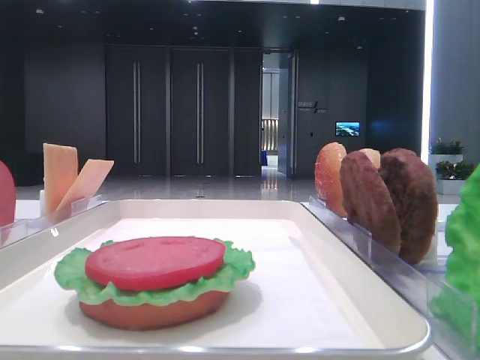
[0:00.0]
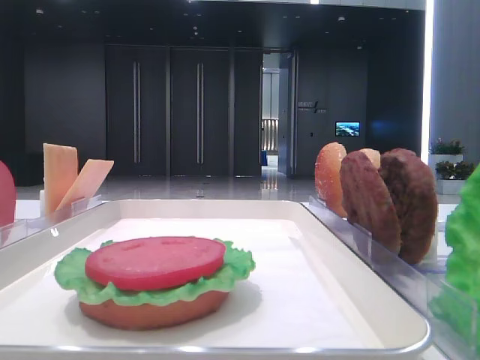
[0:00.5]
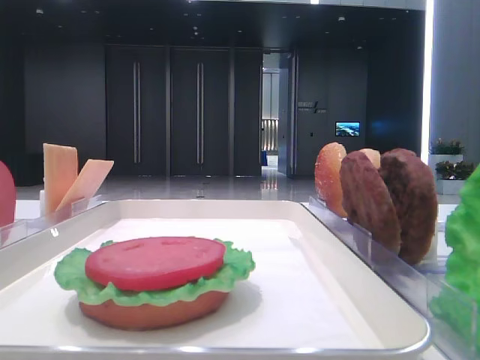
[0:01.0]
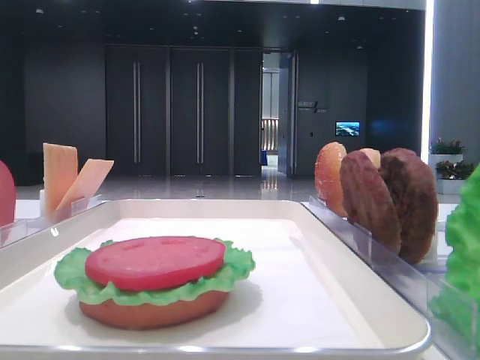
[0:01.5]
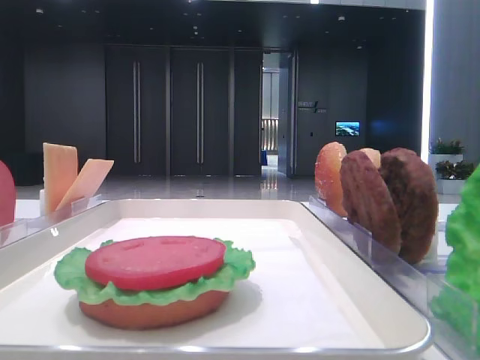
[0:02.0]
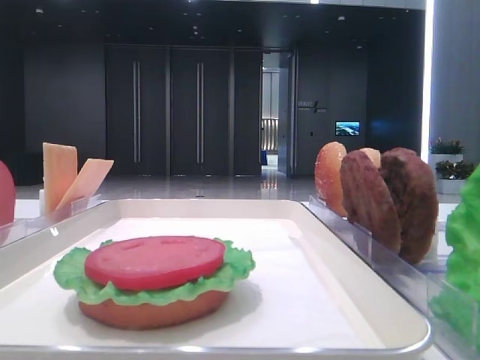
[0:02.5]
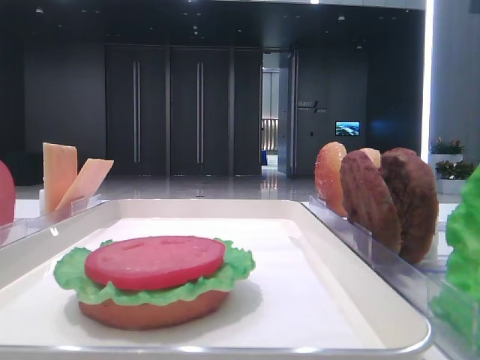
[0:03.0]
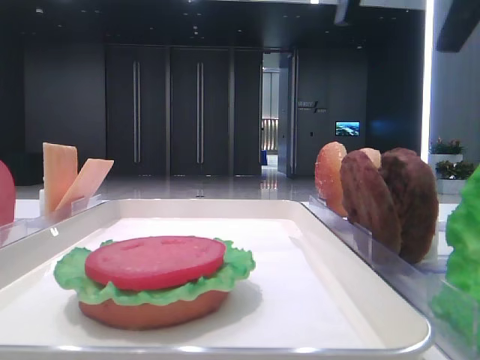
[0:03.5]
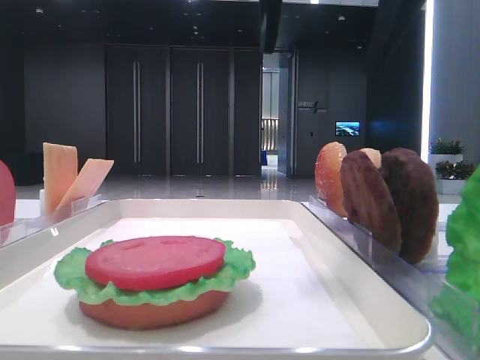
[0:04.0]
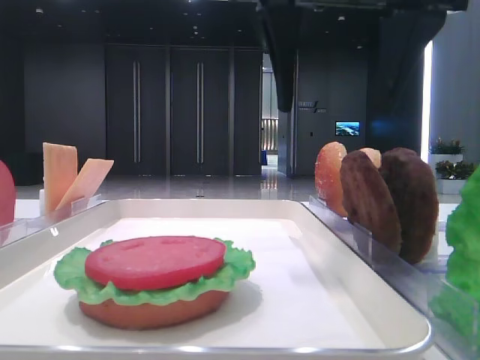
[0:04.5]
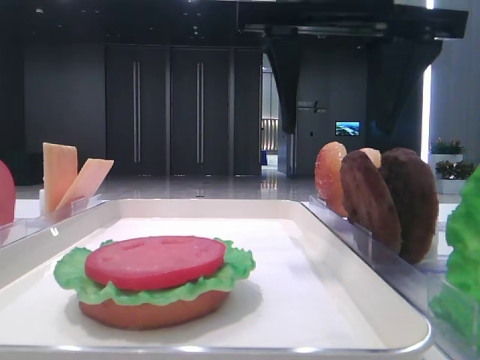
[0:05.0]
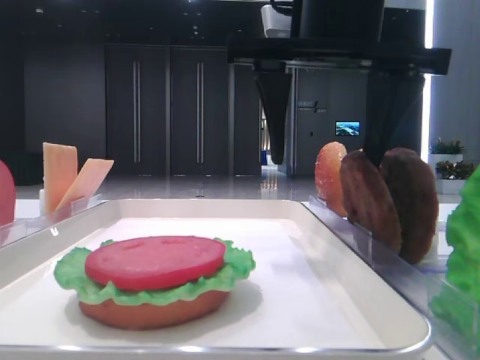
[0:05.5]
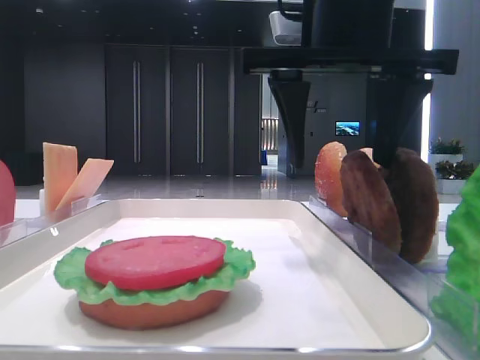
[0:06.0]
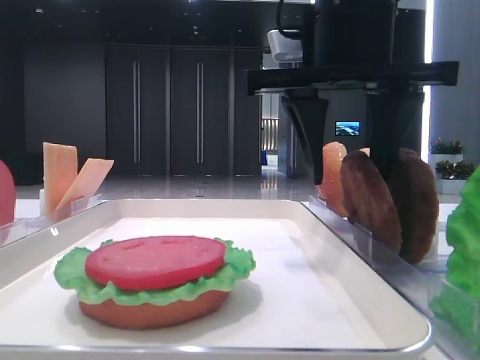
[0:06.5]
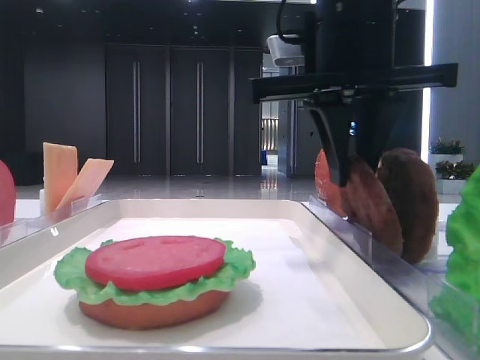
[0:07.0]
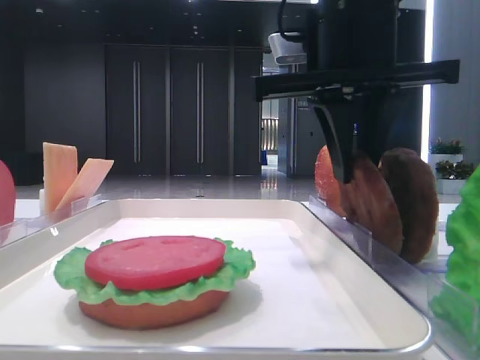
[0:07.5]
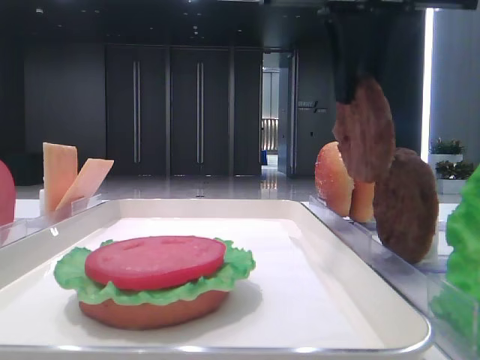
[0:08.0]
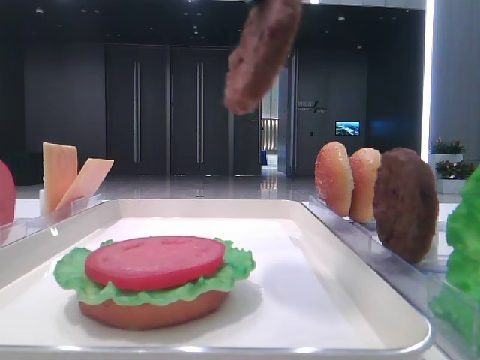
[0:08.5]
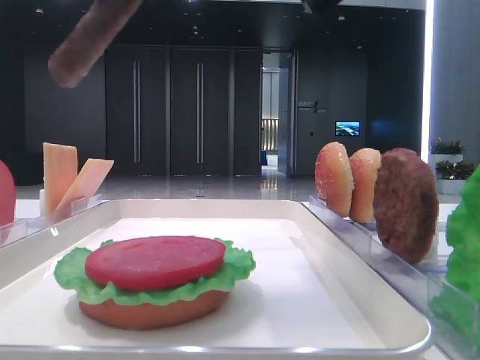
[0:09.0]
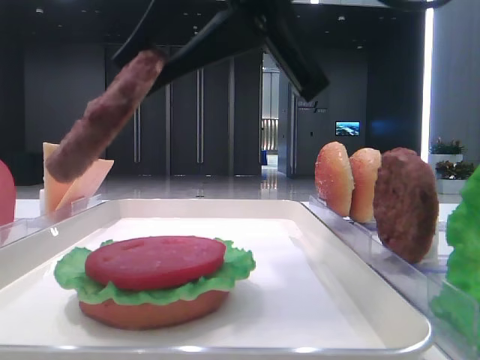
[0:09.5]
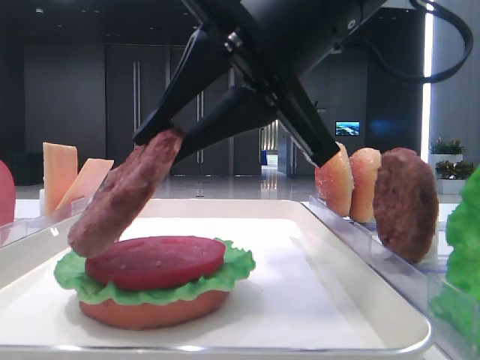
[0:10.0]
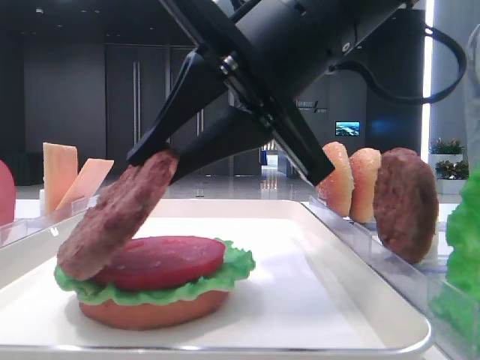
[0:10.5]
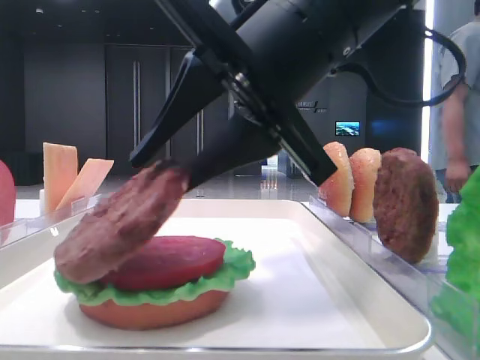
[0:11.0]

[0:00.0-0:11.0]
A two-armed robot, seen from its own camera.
Step, 0:00.0 to 0:07.0: Grab the patty with the right hand.
0:02.0 to 0:03.5: The right gripper goes approximately 15 cm to the left.
0:03.5 to 0:05.5: The left gripper closes its fingers. The right gripper goes some 10 cm downward and to the left.
0:05.5 to 0:07.5: The right gripper closes.
0:07.5 to 0:09.0: The right gripper is displaced upward and backward by roughly 10 cm.
0:09.0 to 0:11.0: The right gripper shifts about 10 cm downward.

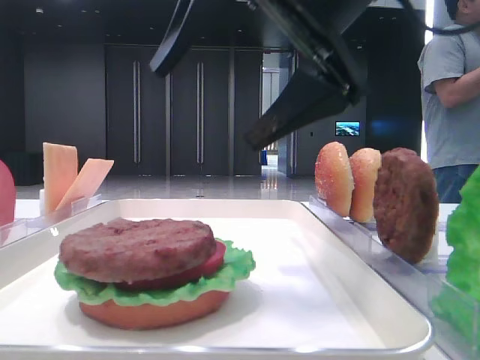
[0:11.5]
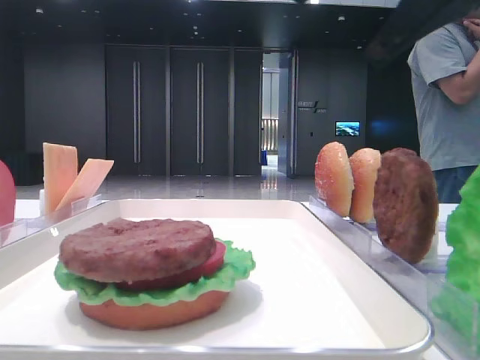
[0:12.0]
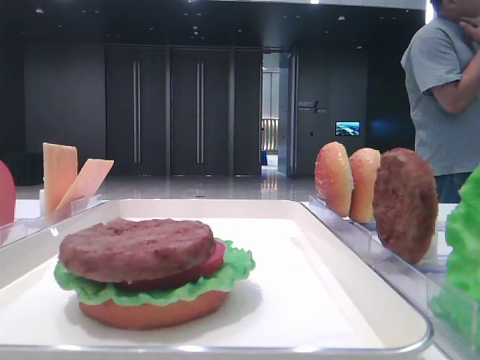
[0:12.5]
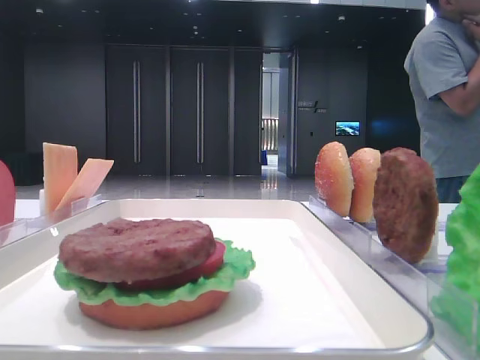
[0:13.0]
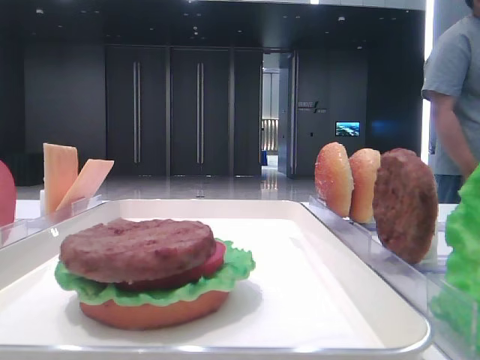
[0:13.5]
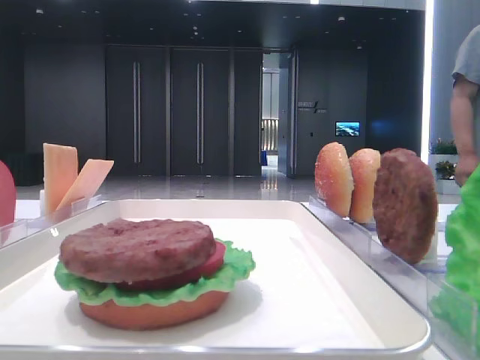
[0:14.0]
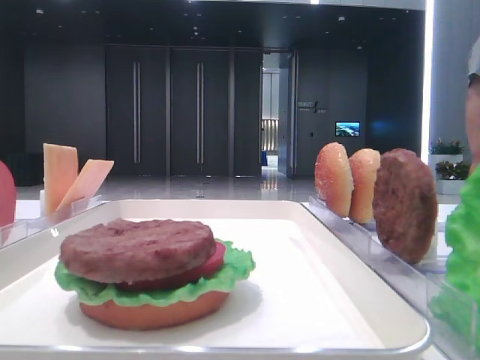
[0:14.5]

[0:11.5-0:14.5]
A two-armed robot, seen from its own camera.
0:11.5 to 0:13.0: The right gripper travels to the right by approximately 25 cm.
0:13.0 to 0:14.5: The right gripper heads backward, covering approximately 25 cm.
